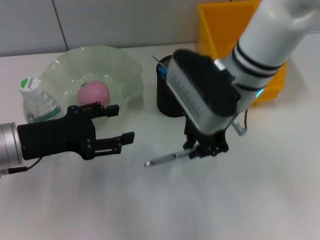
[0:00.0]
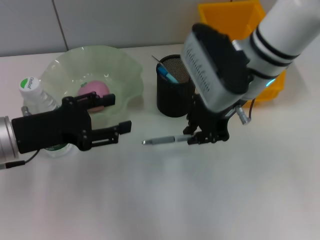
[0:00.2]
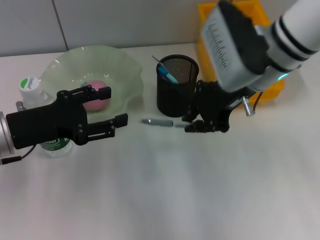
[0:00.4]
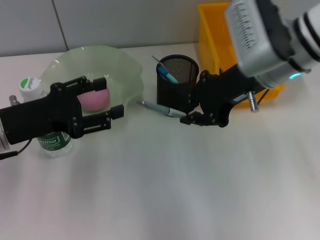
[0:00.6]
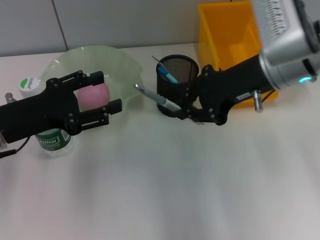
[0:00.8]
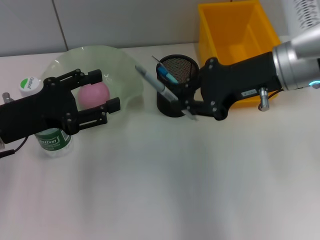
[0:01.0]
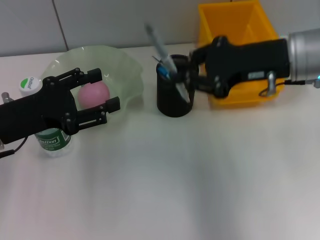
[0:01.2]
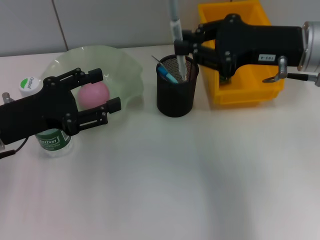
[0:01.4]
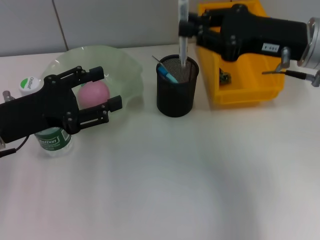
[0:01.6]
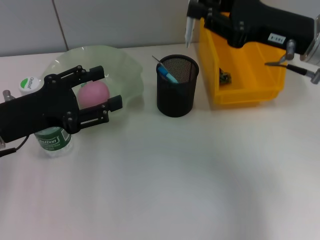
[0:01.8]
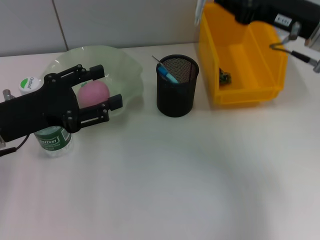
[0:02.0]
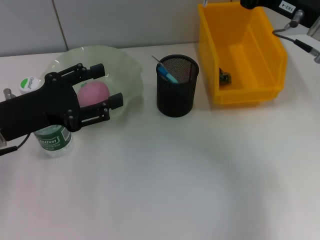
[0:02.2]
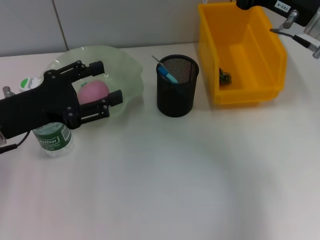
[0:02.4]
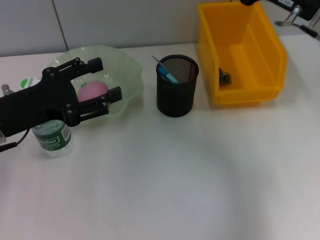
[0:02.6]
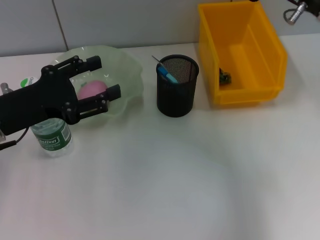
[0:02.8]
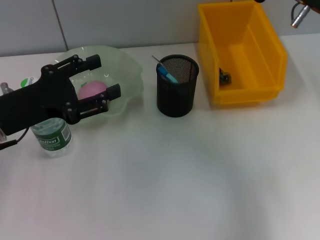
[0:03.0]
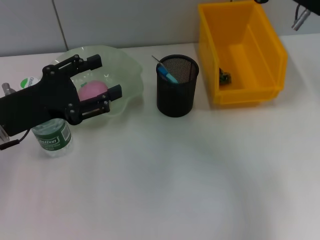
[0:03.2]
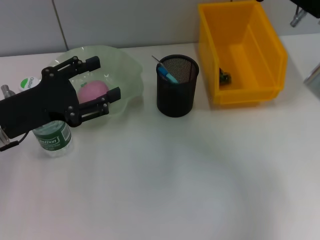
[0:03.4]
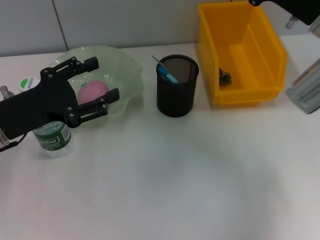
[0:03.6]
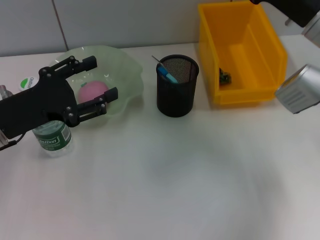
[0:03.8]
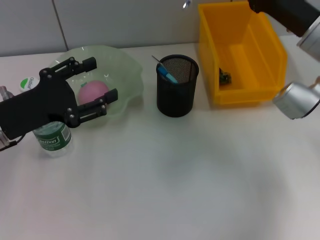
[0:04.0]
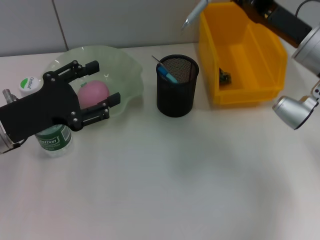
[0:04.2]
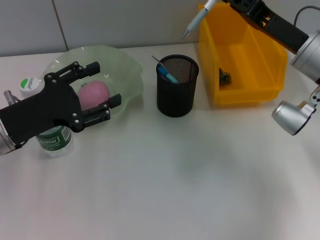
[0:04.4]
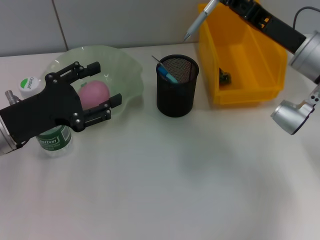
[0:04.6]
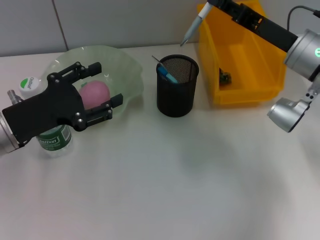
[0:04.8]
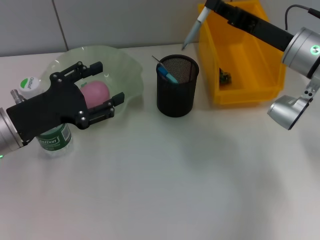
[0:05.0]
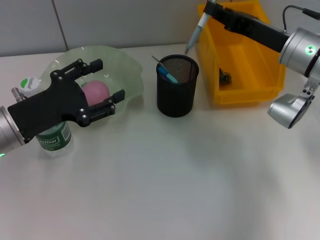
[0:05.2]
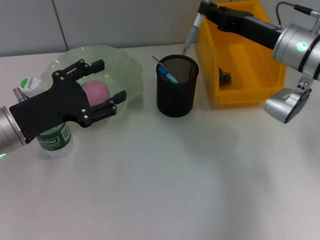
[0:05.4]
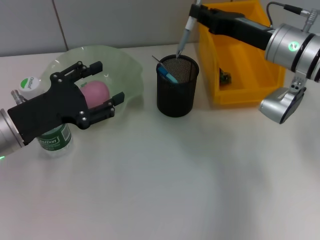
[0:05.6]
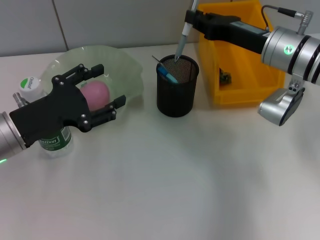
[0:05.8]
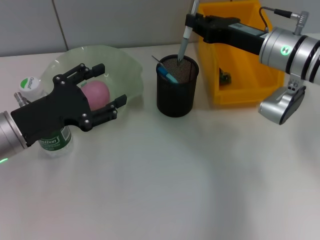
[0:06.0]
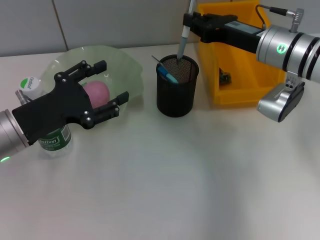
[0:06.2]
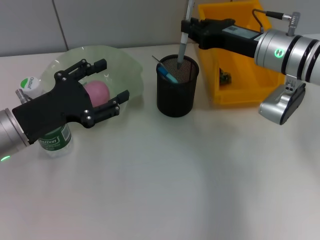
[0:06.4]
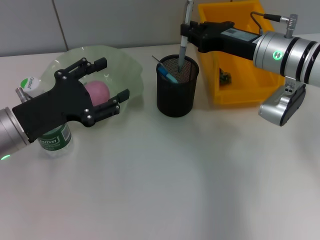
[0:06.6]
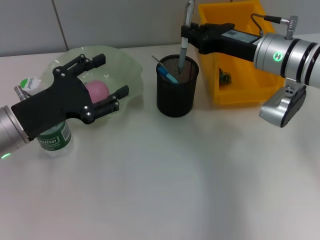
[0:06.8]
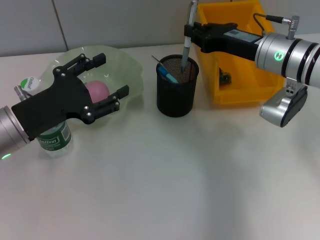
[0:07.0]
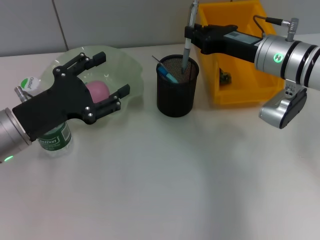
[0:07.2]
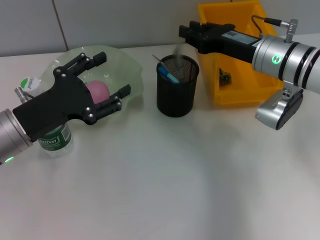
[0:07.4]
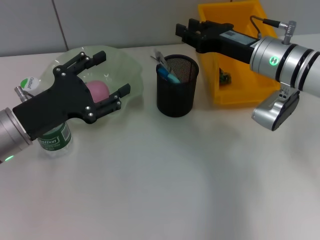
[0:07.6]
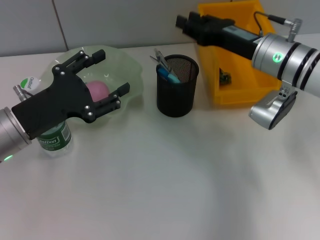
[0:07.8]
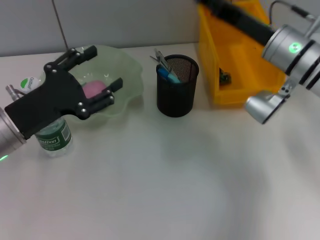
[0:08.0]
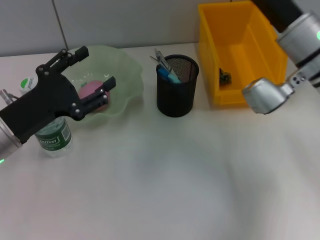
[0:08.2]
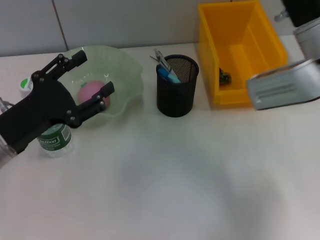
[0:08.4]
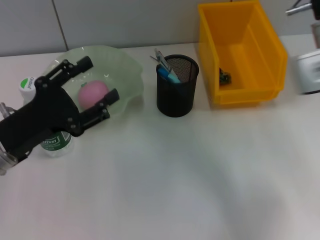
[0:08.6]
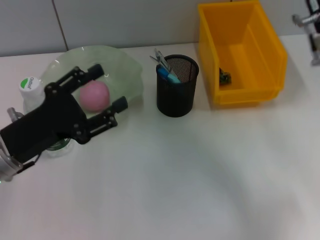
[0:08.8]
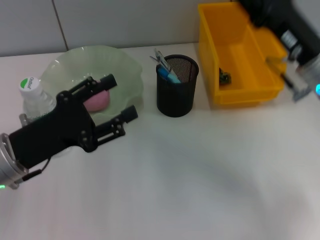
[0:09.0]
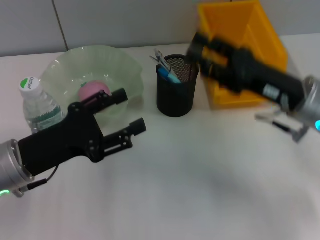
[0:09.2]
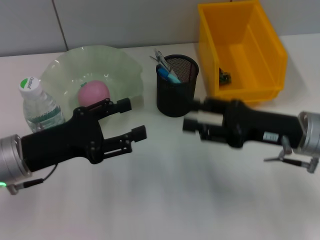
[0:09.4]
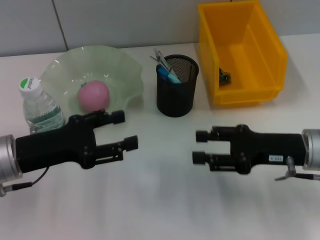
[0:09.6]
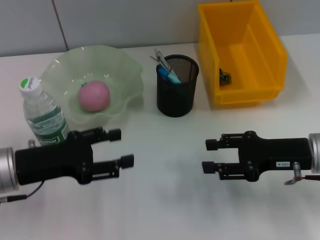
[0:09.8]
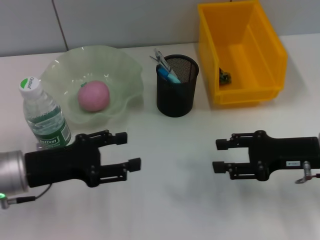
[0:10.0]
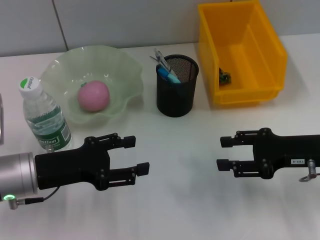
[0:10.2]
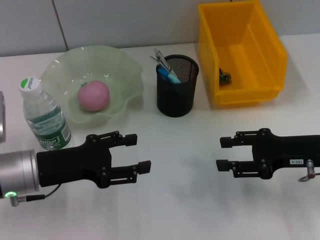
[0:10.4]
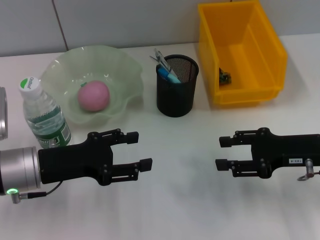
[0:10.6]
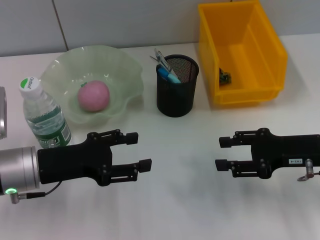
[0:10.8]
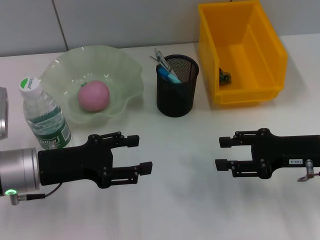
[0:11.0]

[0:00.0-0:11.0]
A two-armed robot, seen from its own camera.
Step, 0:00.0 to 0:07.6: Place the gray spring-action pen into the pen holder with the right hand.
0:00.0 to 0:01.6: The right gripper travels to the right by approximately 15 cm.
0:03.2 to 0:04.8: The right gripper is displaced downward by approximately 5 cm.
0:06.2 to 0:07.8: The right gripper opens its fingers.
0:07.8 to 0:09.4: The right gripper shifts approximately 10 cm backward.
